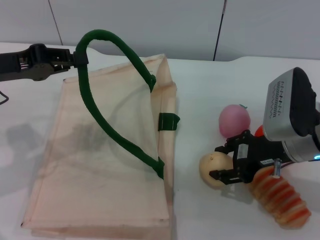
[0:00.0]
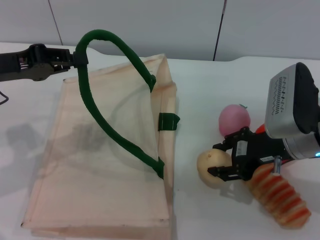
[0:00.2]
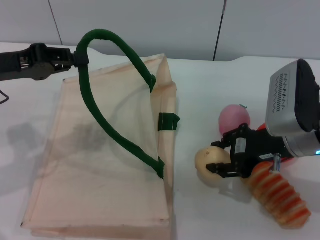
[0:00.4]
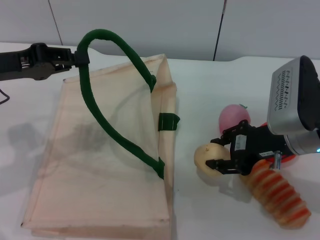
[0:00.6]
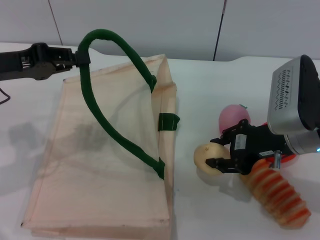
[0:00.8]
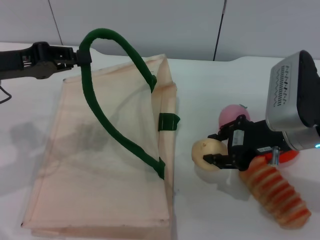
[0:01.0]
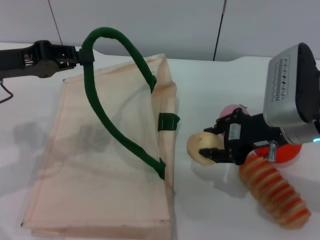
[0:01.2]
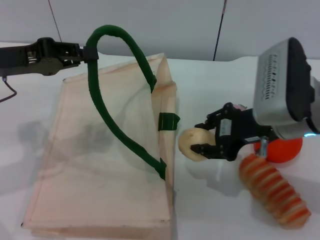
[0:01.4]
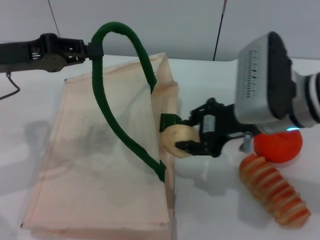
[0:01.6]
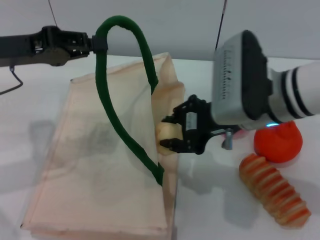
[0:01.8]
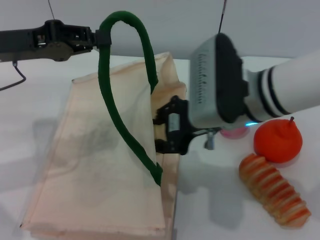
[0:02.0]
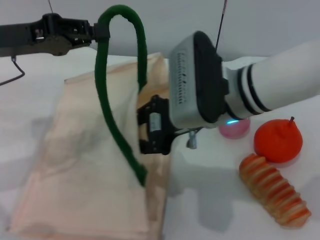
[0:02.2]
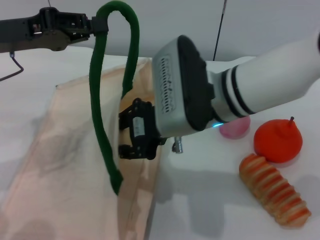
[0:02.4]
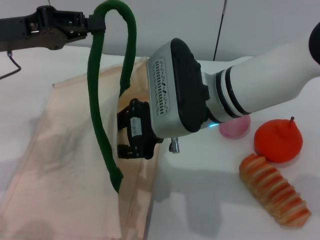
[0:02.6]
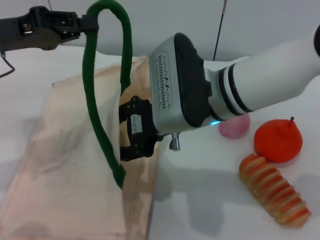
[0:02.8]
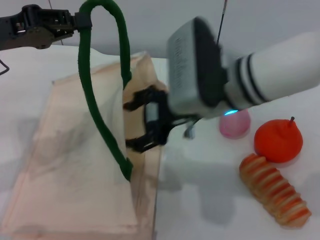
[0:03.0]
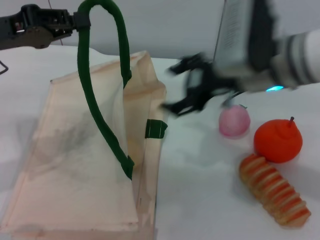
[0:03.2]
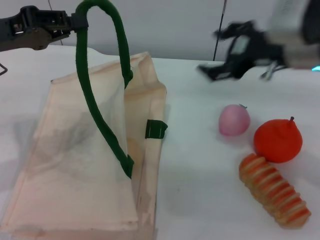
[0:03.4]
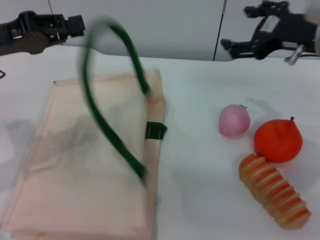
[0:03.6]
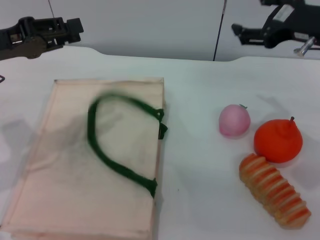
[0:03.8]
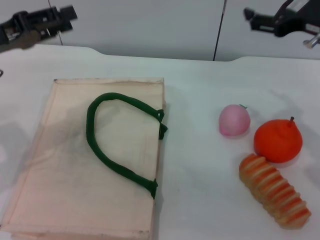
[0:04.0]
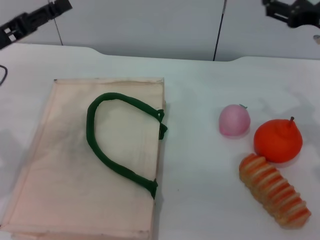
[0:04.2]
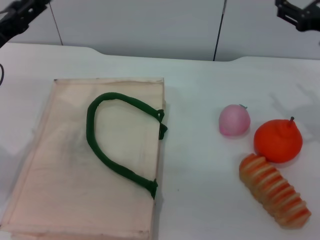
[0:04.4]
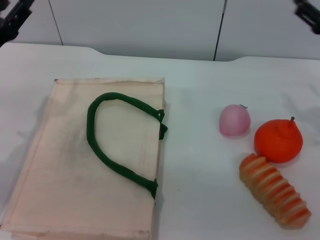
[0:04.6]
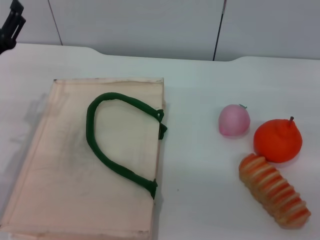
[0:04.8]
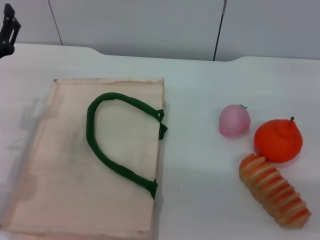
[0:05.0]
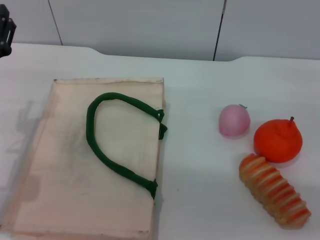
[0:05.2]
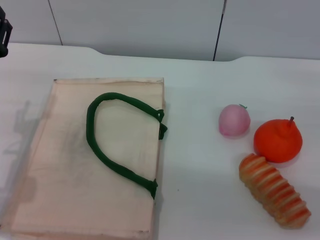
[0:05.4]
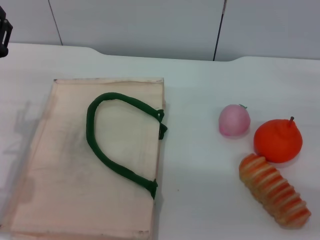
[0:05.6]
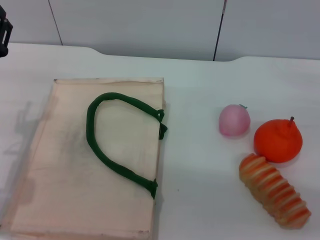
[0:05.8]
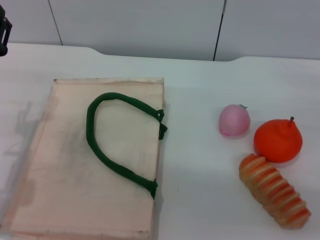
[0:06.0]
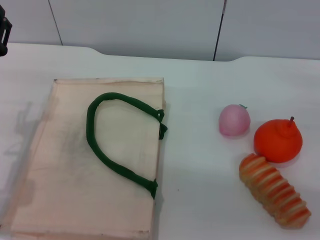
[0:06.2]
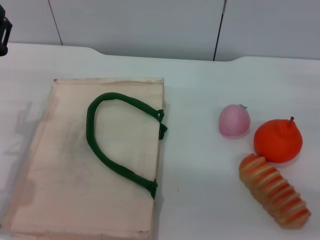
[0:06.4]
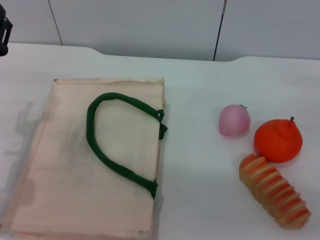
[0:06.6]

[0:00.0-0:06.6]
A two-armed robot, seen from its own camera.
Task of the whole recording: pick up the egg yolk pastry from the table and place it in the white handbag.
Step, 0:01.2 to 0:03.2: Place the egg yolk pastry into the woven bag with the right gripper.
Step, 0:03.4 to 0:05.0: Lower the woven bag with the left gripper to close it.
0:00.0 to 0:01.6: The right gripper is displaced to the left and upward by approximately 5 cm, and closes its fingers.
0:01.6 to 0:03.2: The right gripper reaches roughly 10 cm to the left, then returns, and opens.
0:03.2 to 0:05.0: The left gripper shifts some 15 cm downward, and opens up. The right gripper shifts about 25 cm to the right and downward.
